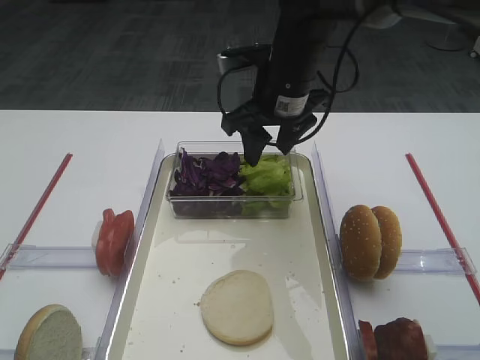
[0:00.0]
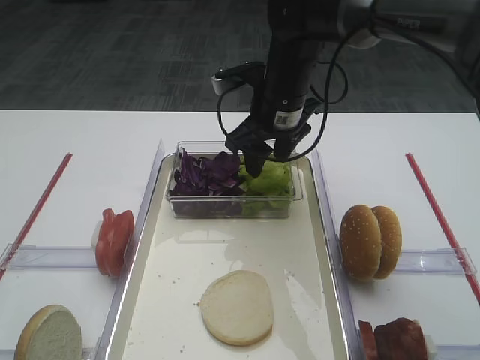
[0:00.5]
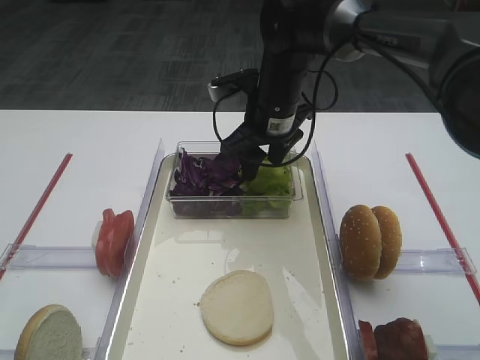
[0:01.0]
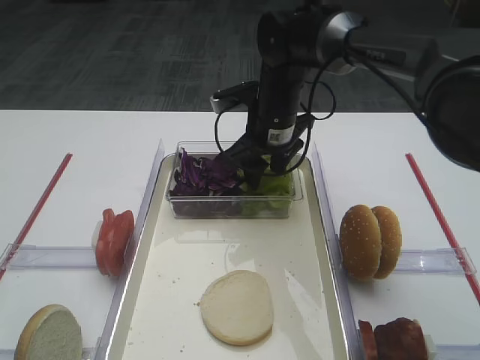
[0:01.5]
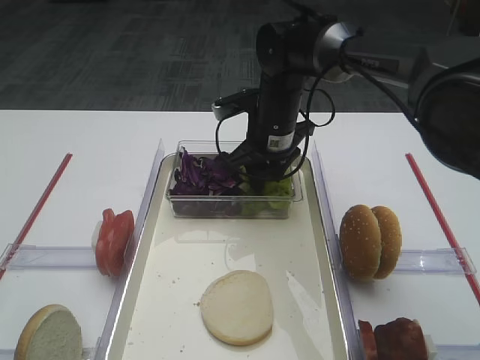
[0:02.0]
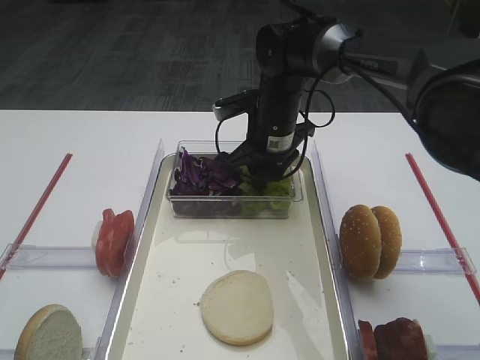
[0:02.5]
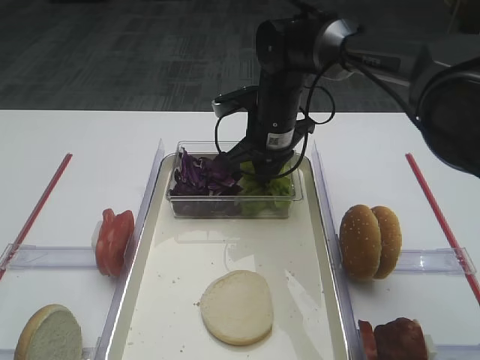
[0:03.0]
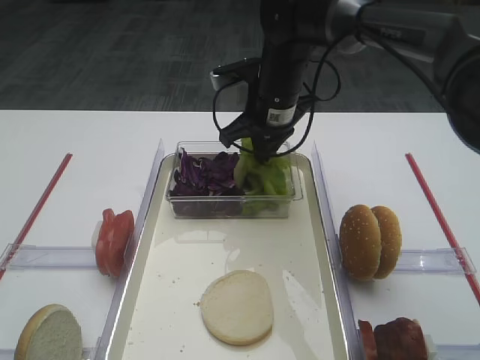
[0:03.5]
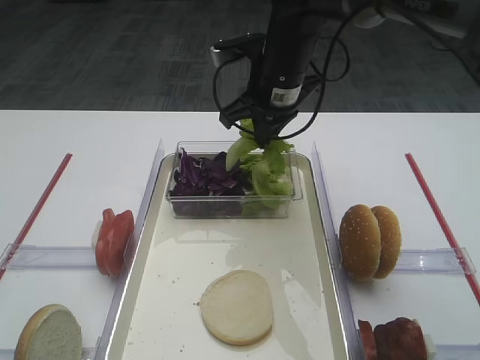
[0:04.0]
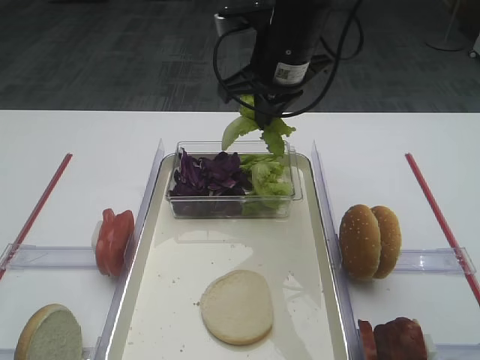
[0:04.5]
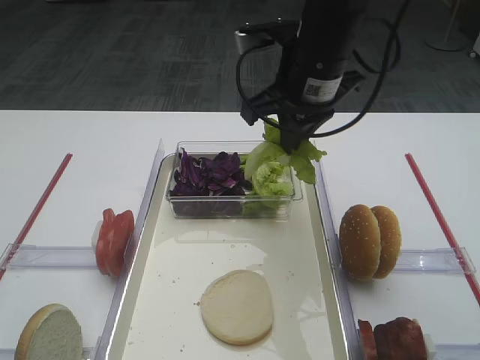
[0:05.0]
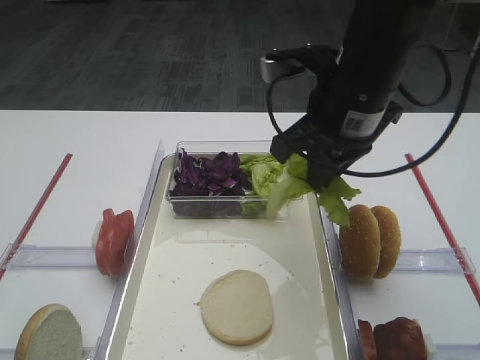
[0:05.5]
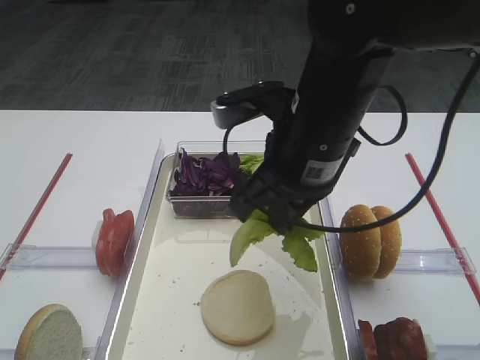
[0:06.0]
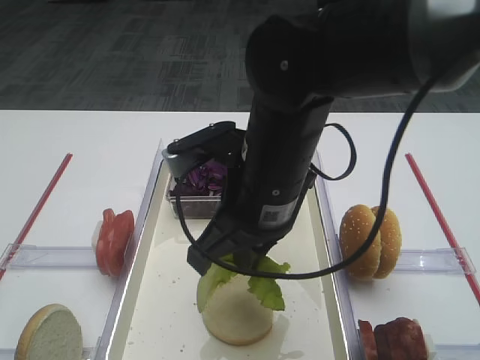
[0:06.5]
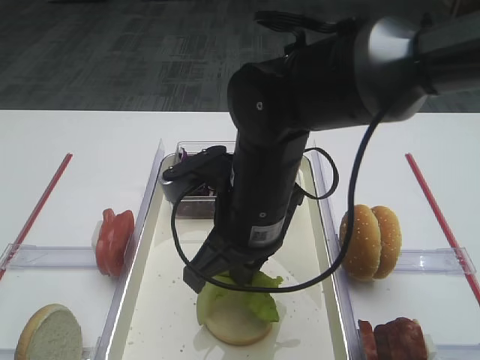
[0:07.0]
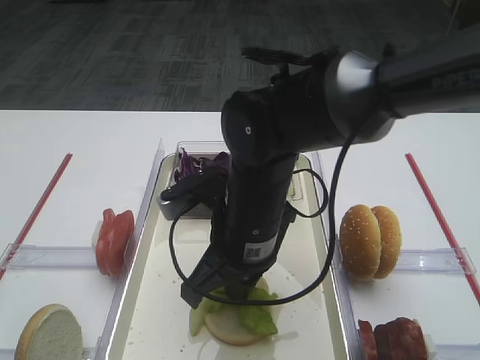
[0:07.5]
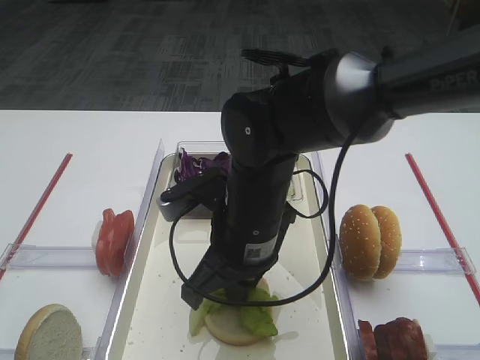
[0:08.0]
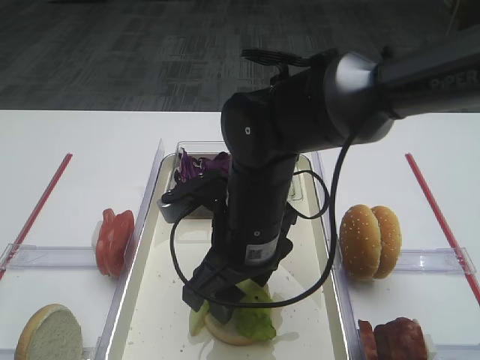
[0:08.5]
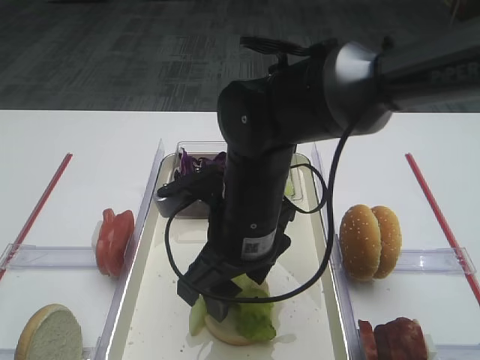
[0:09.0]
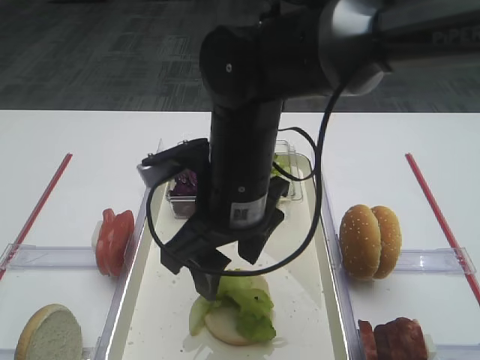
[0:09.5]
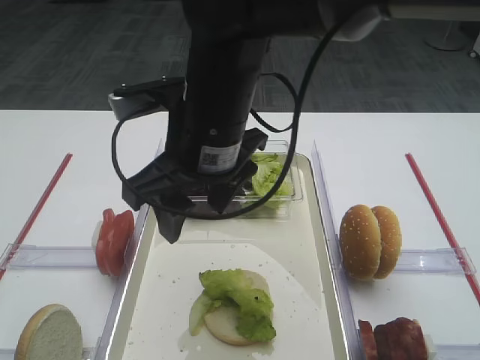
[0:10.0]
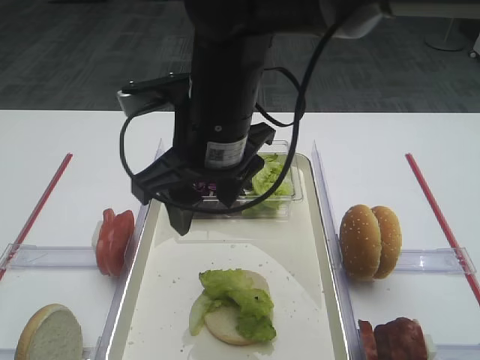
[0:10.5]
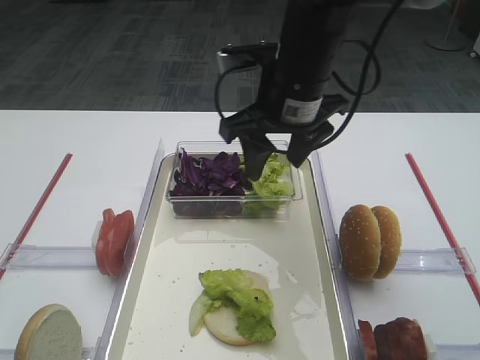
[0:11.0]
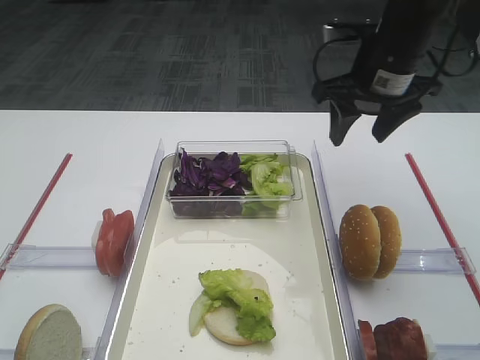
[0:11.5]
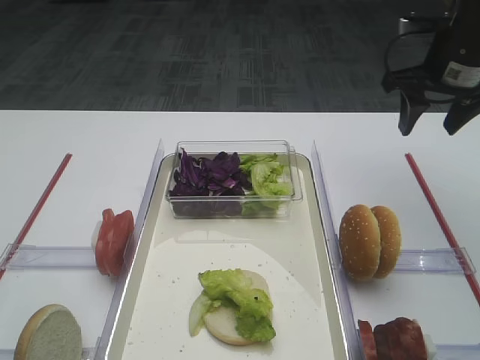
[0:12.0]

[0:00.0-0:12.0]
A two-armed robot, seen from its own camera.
Step, 0:00.0 to 0:03.5: Pick up the lettuce leaf with the right gripper.
Step, 0:04.0 to 0:09.5: Place the lettuce leaf on the bread slice with the right gripper.
0:00.0 to 0:02.0: The right gripper goes approximately 10 cm downward.
0:02.0 to 0:04.0: The right gripper moves upward, about 10 cm, and closes up.
0:04.0 to 0:06.0: The right gripper goes some 15 cm backward.
0:06.0 to 0:08.0: The right gripper heads downward and to the left, covering about 10 cm.
0:08.0 to 0:10.0: The right gripper goes roughly 10 cm upward, and opens its fingers.
0:10.0 to 0:12.0: The right gripper is displaced to the right and forward by approximately 30 cm.

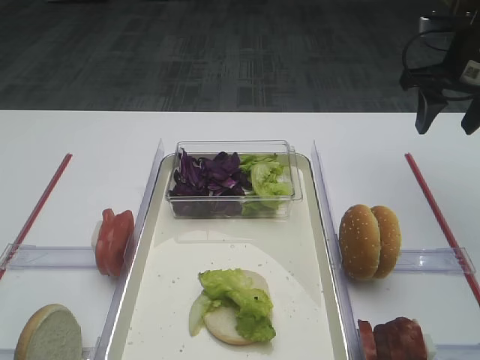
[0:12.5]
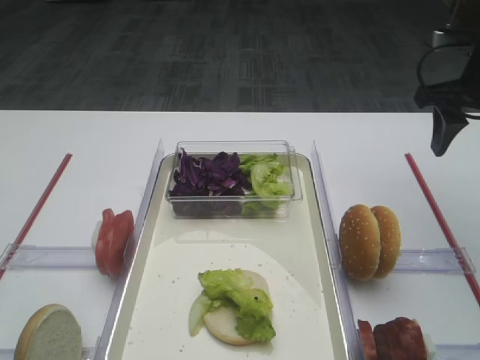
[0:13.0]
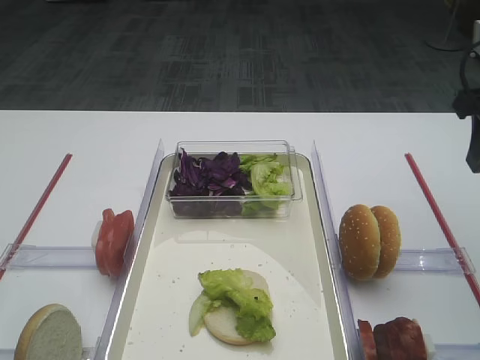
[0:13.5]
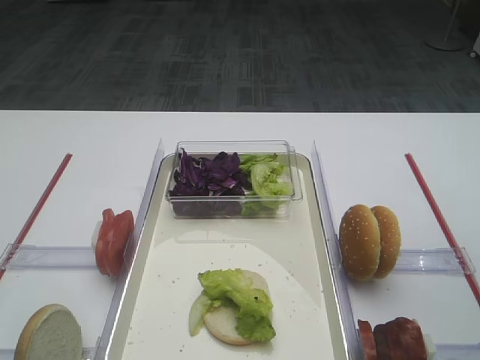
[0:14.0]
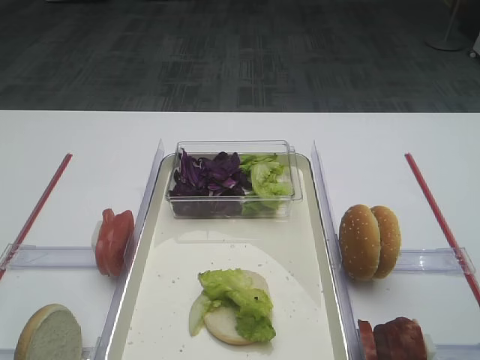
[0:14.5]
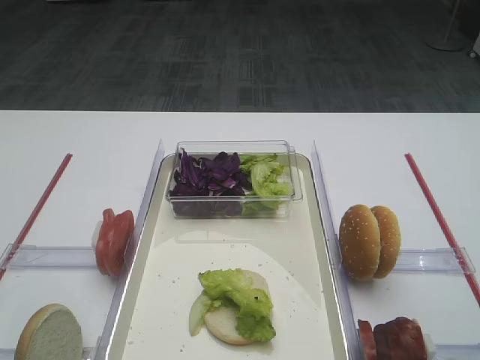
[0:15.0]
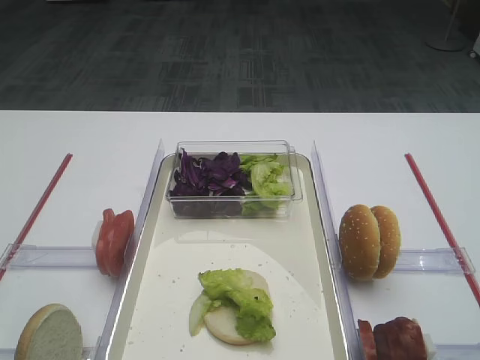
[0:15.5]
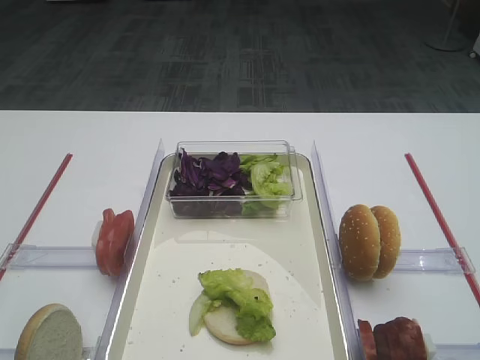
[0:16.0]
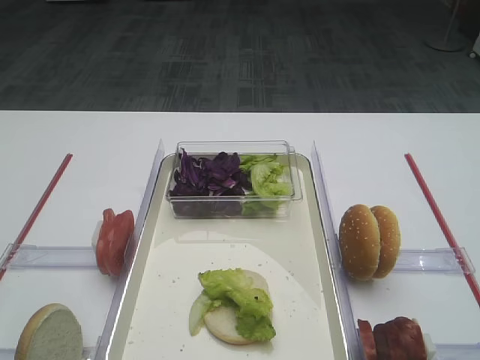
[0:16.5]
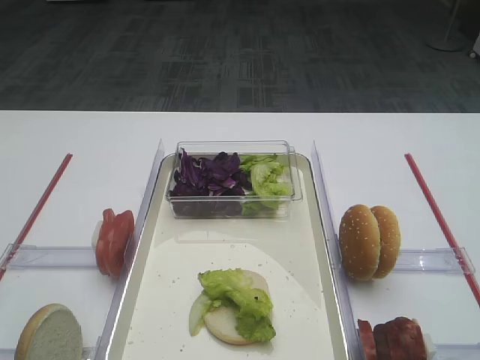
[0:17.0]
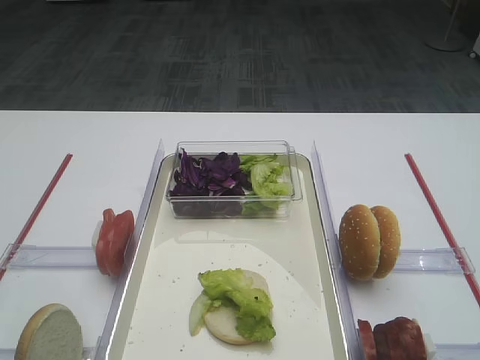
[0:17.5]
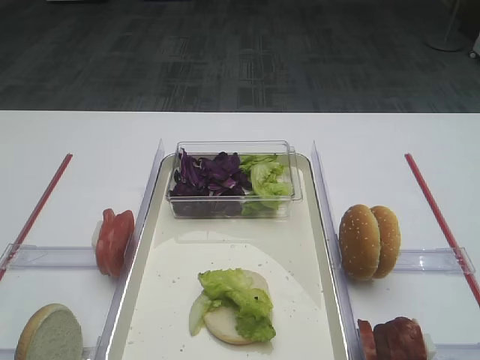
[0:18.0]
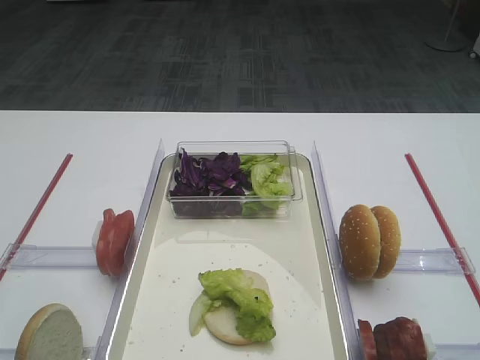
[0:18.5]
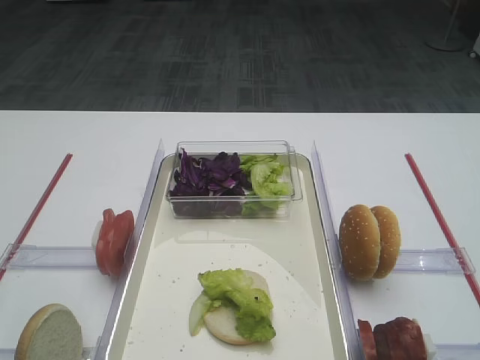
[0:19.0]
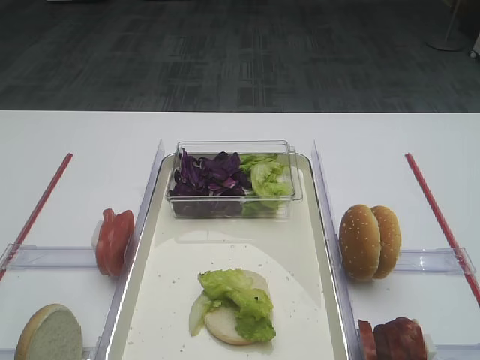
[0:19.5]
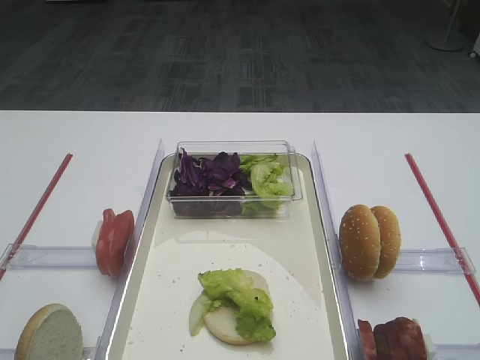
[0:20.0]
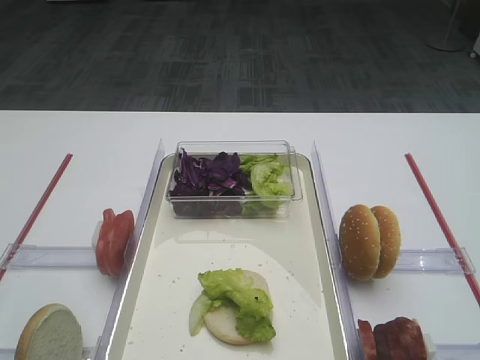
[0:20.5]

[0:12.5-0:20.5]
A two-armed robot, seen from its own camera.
0:12.5 to 0:14.5: The right gripper goes roughly 25 cm backward.
0:18.5 to 0:20.5: The two grippers keep their place.

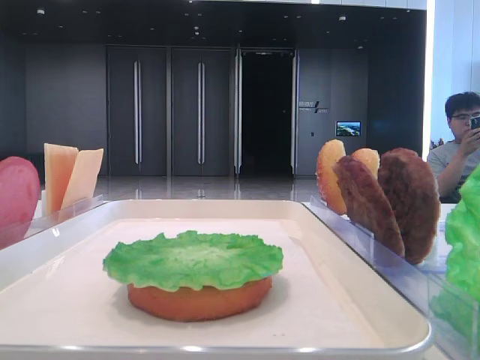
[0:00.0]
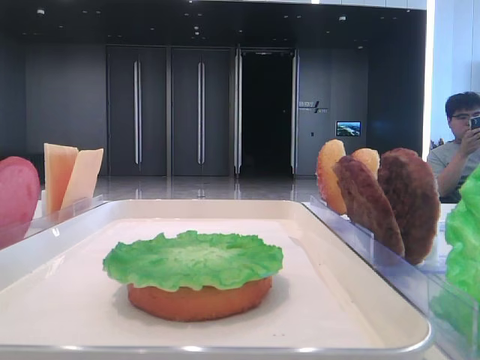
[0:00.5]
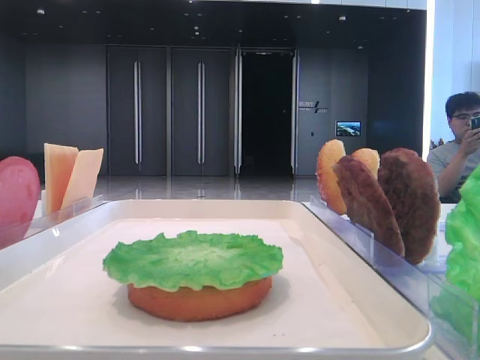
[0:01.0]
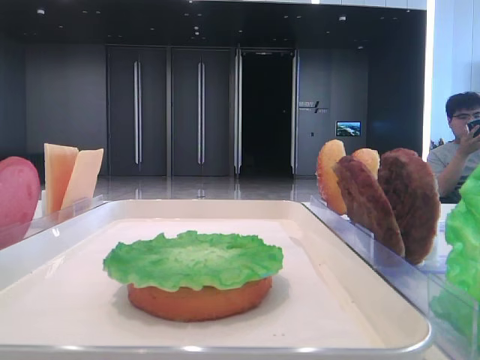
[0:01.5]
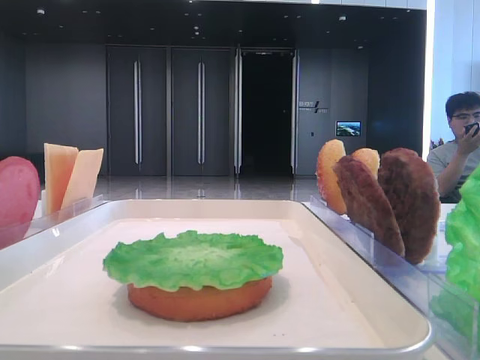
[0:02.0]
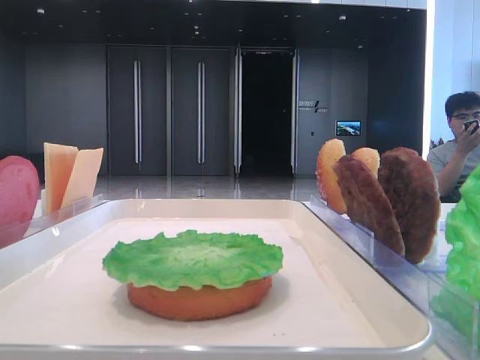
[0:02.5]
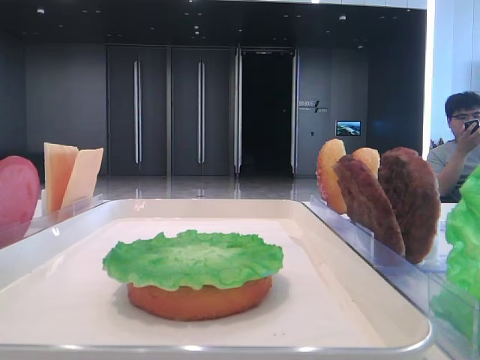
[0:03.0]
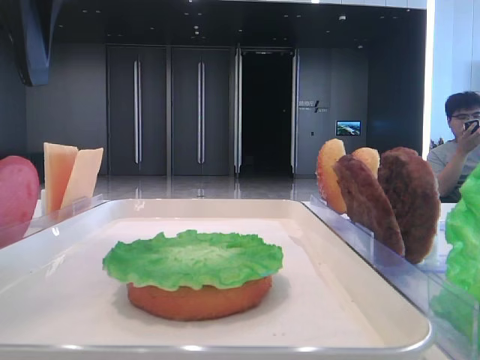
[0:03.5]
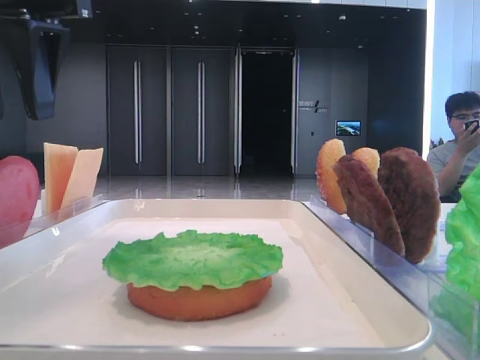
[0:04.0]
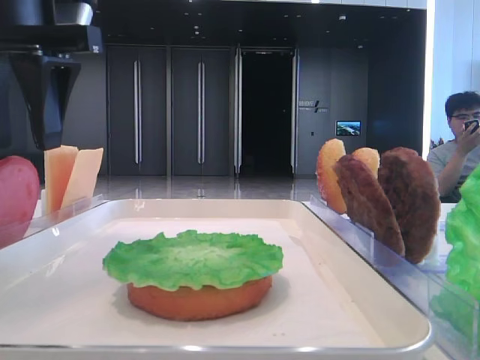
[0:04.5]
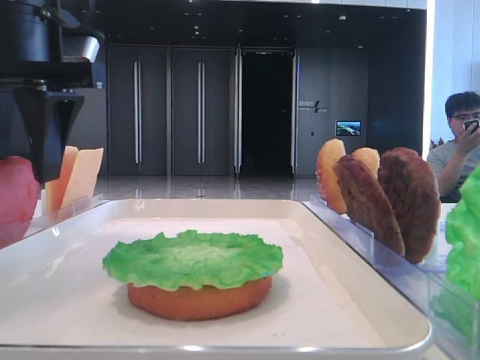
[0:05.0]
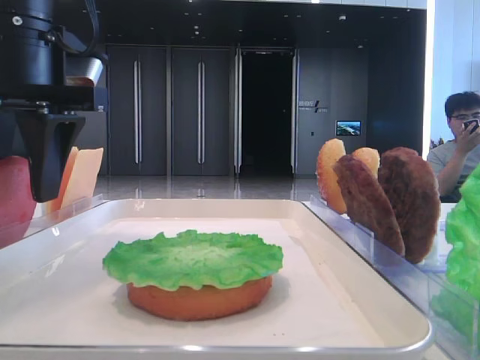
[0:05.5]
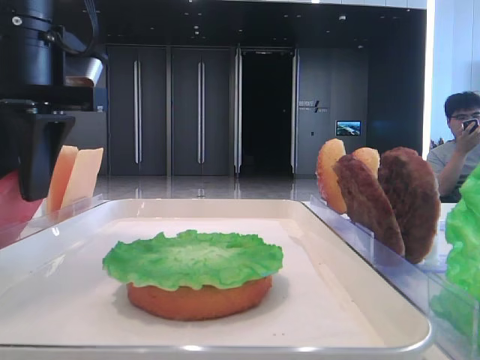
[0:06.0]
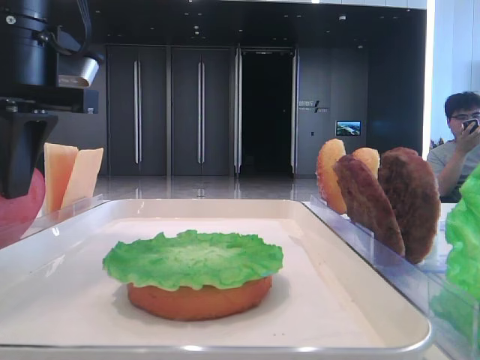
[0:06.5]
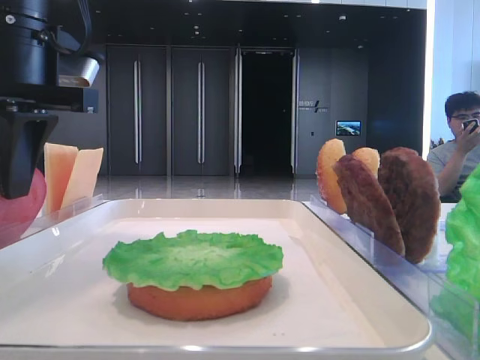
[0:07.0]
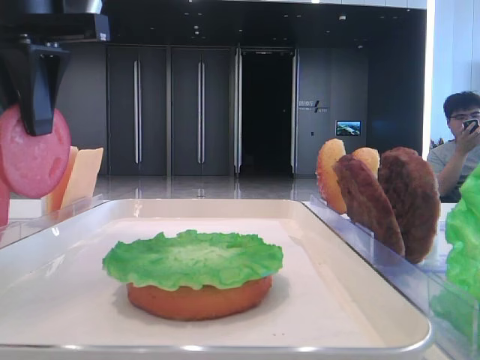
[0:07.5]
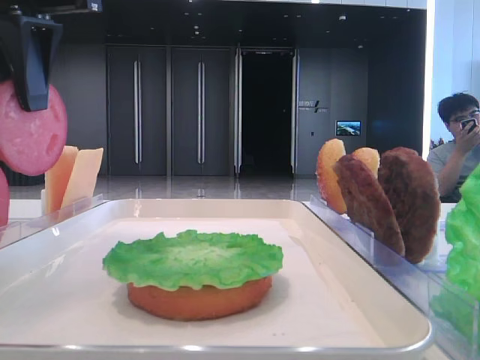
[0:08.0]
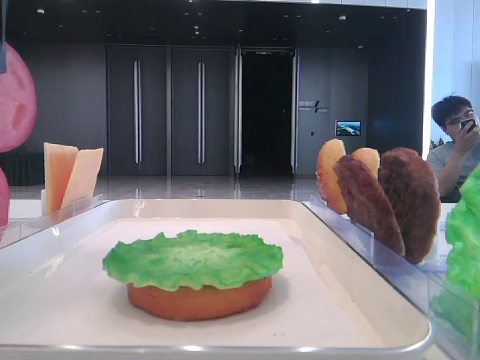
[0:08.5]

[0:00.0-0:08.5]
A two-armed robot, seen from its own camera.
Step, 0:00.0 to 0:06.5: Pick up the tomato slice with the left hand.
0:02.0 to 0:04.0: The left gripper is displaced forward and to the right by about 25 cm.
0:04.0 to 0:06.5: The left gripper goes some 5 cm downward, and closes up.
0:06.5 to 0:08.5: The left gripper goes about 10 cm upward and backward.
